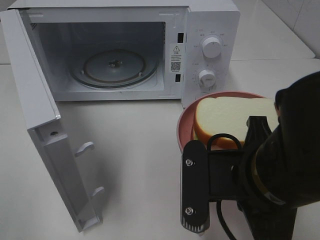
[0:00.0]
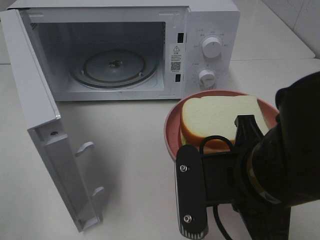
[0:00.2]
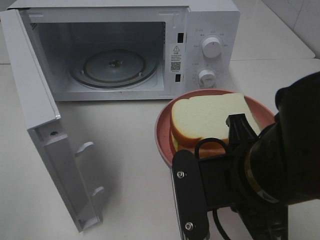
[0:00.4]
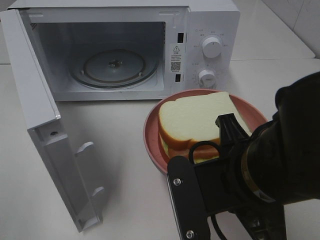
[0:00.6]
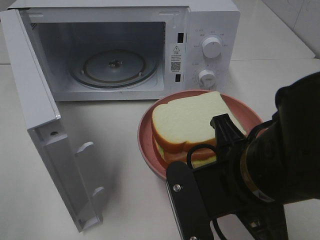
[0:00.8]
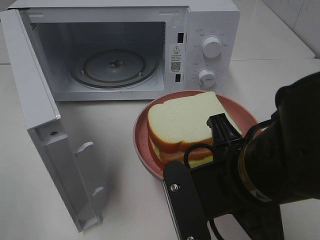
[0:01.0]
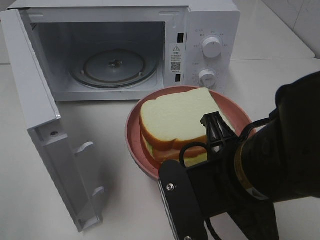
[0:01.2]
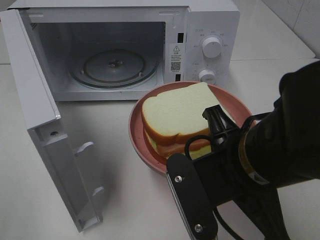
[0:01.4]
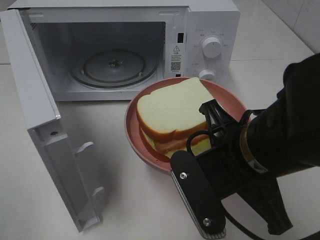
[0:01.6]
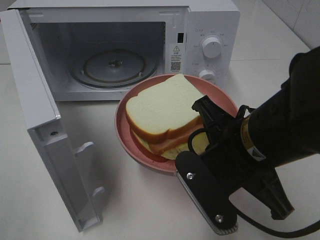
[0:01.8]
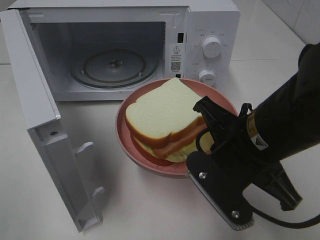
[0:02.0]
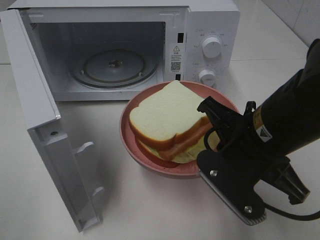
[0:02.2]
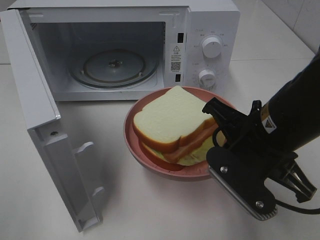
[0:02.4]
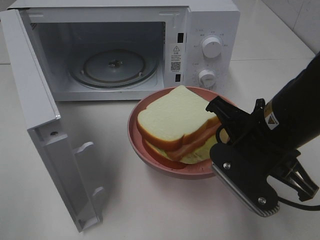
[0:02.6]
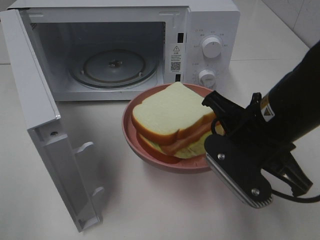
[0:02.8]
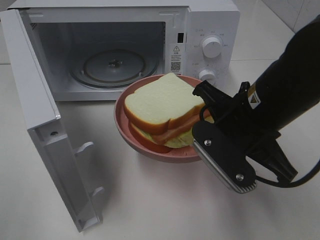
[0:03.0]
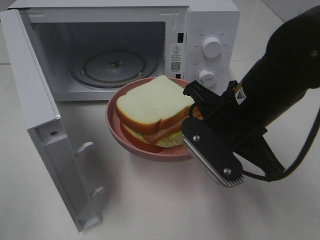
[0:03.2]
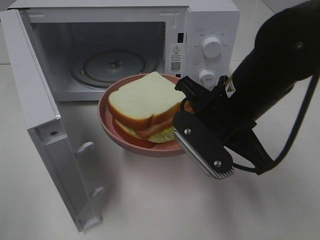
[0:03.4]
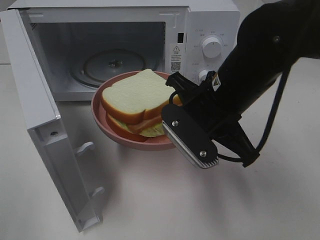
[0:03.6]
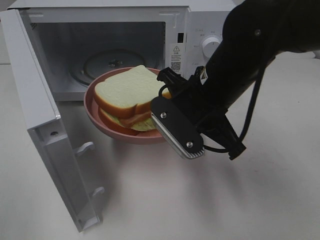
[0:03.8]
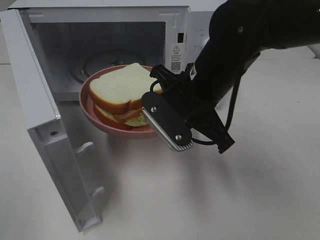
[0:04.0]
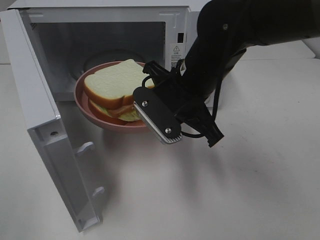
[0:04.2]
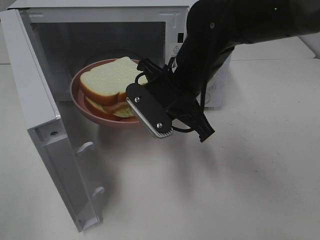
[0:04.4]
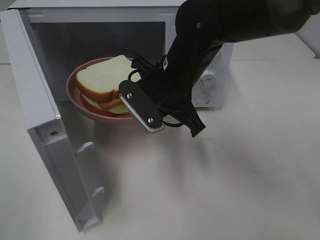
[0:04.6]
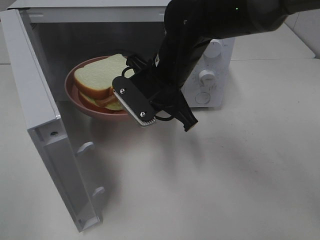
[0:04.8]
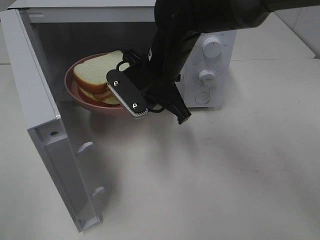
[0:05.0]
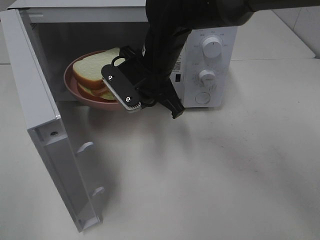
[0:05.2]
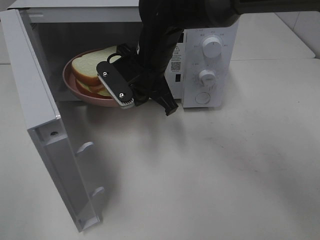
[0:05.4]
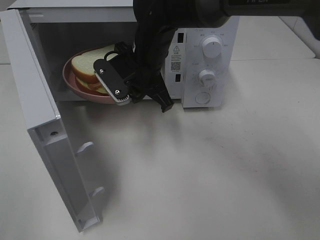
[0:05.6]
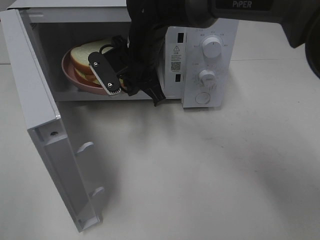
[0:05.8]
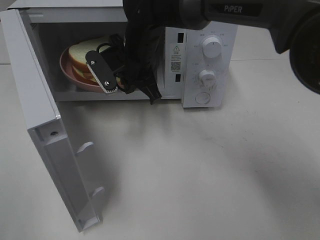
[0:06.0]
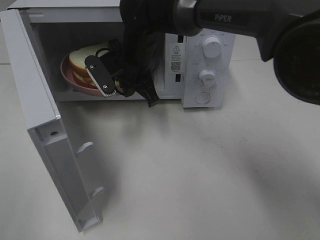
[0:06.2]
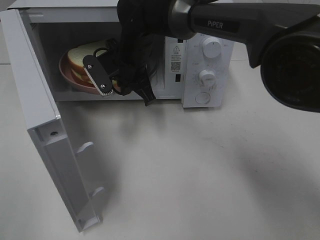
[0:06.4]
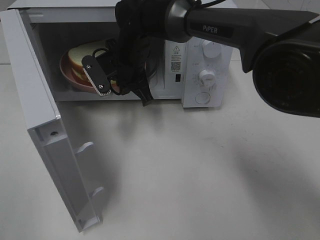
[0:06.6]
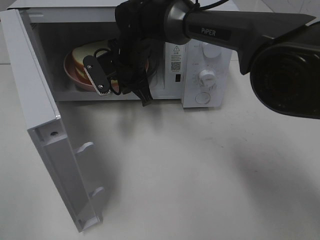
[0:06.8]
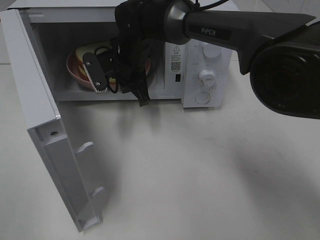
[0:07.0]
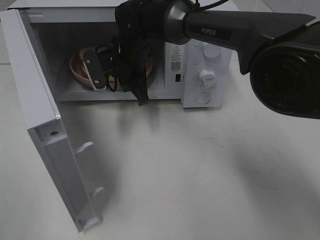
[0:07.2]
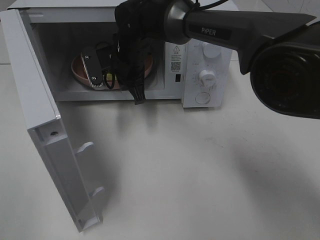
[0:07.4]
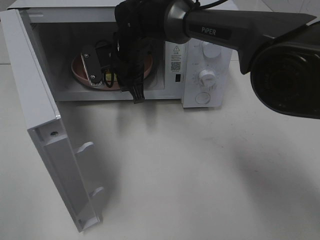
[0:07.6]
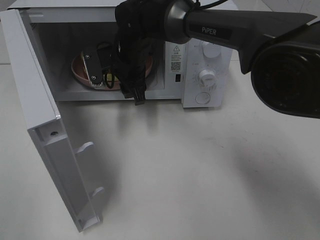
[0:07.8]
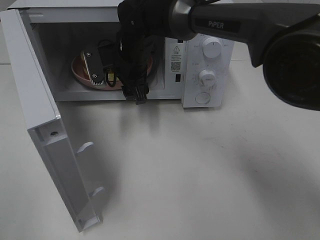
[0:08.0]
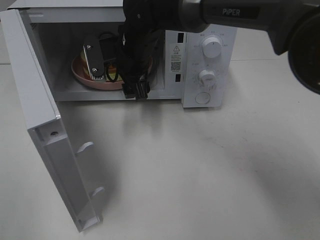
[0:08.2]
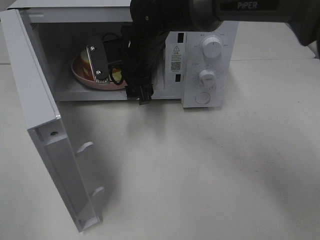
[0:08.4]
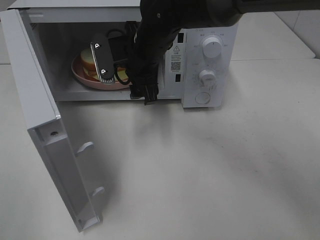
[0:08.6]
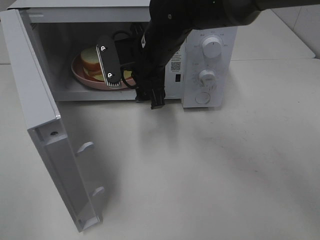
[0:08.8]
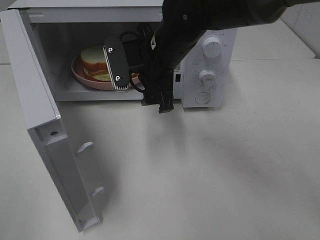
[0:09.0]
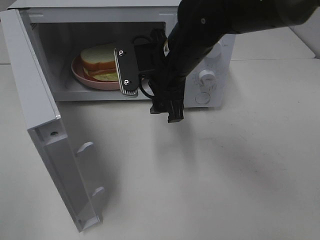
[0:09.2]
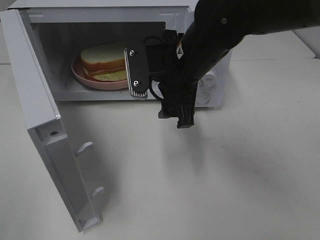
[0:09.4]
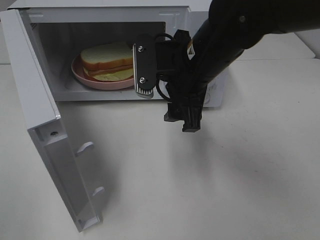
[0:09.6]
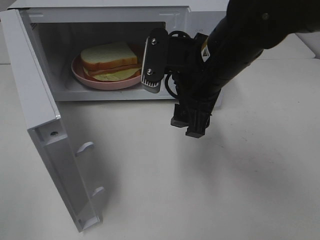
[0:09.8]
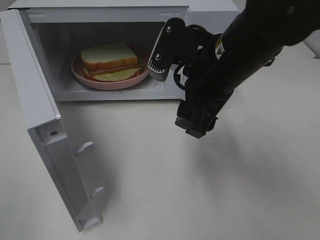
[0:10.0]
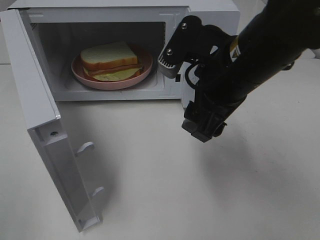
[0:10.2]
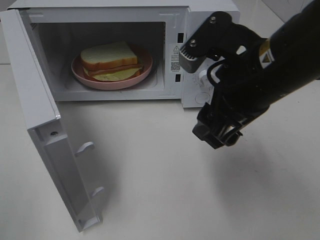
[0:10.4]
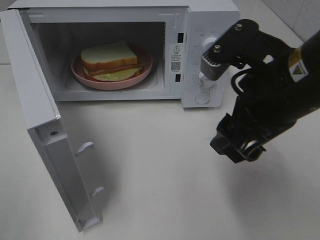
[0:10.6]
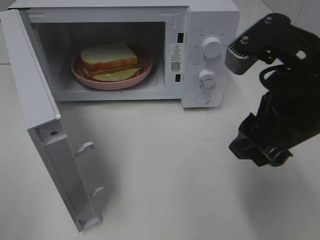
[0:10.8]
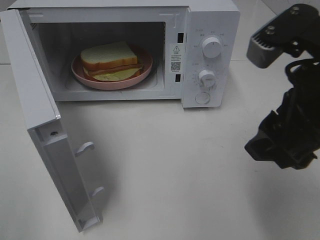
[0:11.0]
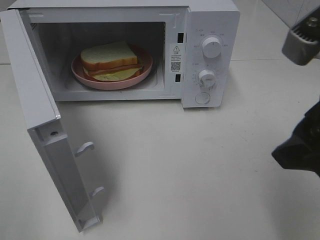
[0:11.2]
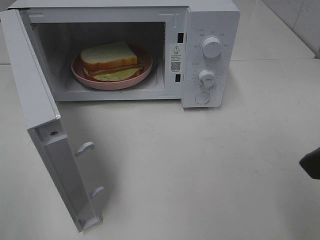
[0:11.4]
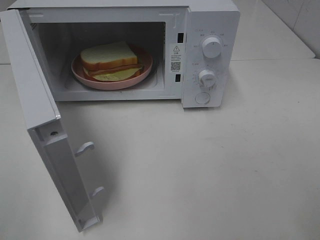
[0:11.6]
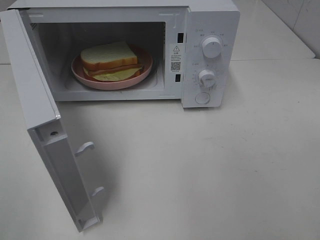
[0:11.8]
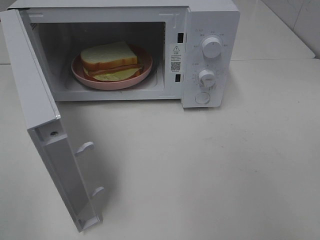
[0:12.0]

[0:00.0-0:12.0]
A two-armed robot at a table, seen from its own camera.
Task of the whole recording: Heat Sandwich.
Step, 0:00.0 to 0:07.6: Right hand: place the plate in the microwave.
0:01.6 to 0:03.0: The right gripper travels forward by about 5 cm.
0:03.0 to 0:04.4: The right gripper heads forward and to the left, covering approximately 10 cm.
0:04.4 to 0:06.0: The right gripper is displaced forward and to the left by about 15 cm.
0:06.0 to 0:07.6: The right gripper opens up.
0:07.6 to 0:09.0: The right gripper is displaced backward and to the right by about 10 cm, and opens.
0:09.0 to 0:10.4: The right gripper heads backward and to the right, covering some 15 cm.
0:10.4 to 0:12.0: The right gripper travels backward and to the right by some 20 cm.

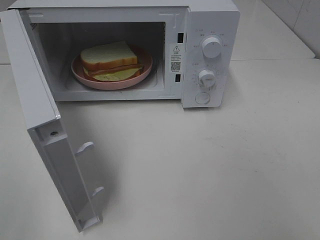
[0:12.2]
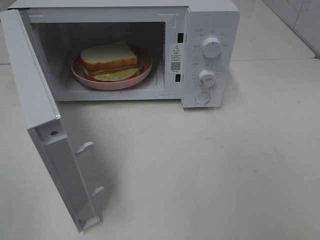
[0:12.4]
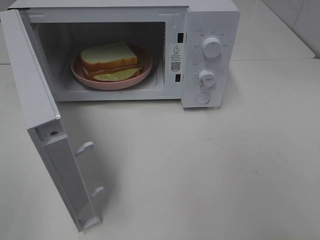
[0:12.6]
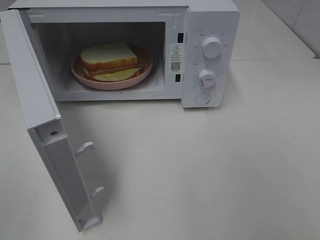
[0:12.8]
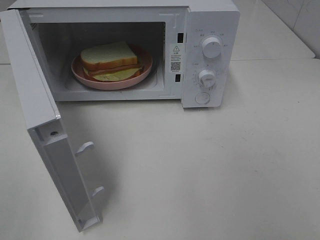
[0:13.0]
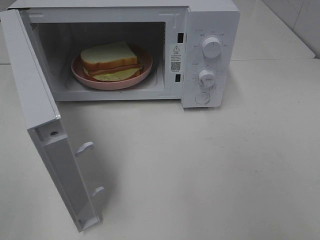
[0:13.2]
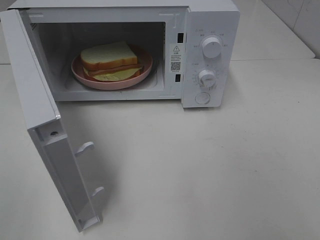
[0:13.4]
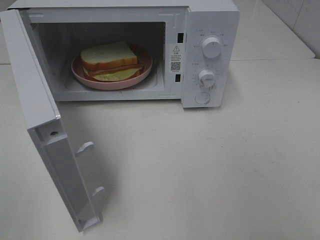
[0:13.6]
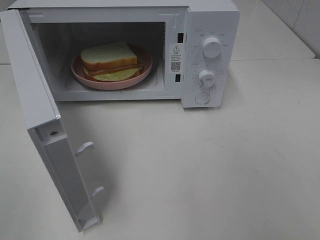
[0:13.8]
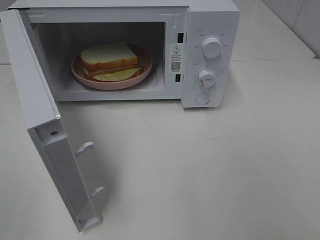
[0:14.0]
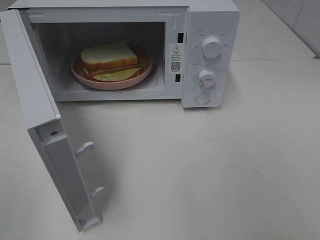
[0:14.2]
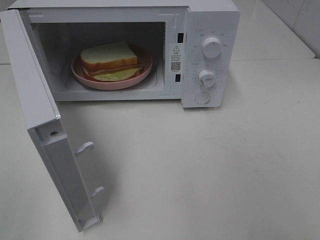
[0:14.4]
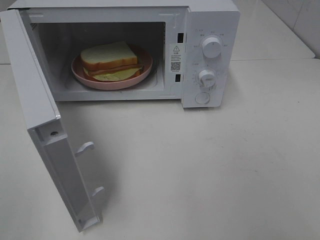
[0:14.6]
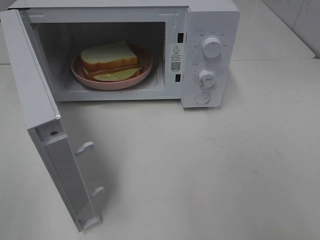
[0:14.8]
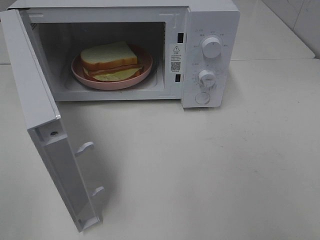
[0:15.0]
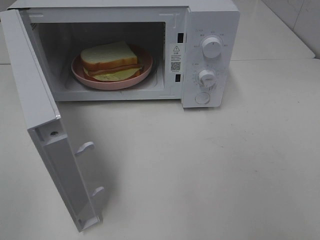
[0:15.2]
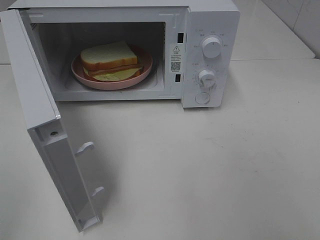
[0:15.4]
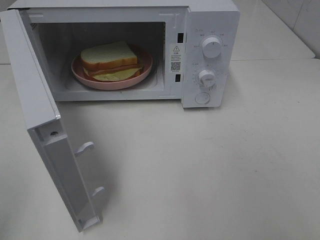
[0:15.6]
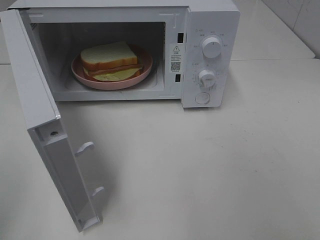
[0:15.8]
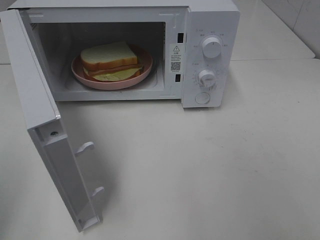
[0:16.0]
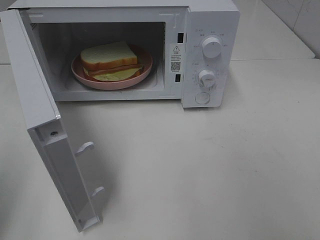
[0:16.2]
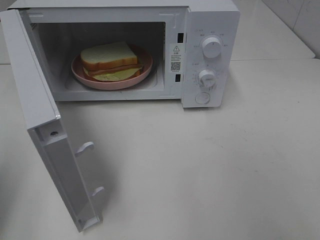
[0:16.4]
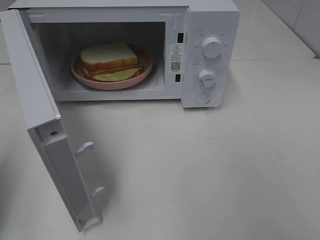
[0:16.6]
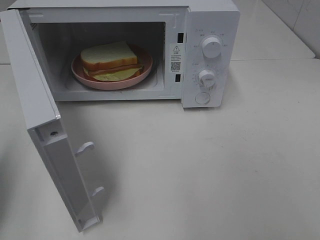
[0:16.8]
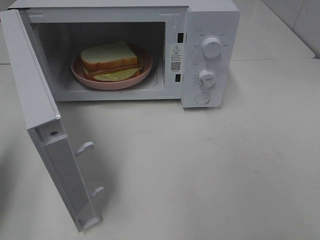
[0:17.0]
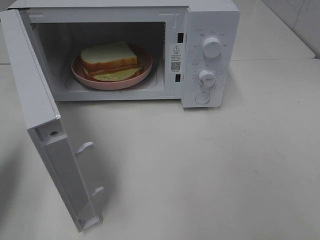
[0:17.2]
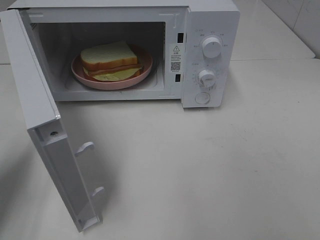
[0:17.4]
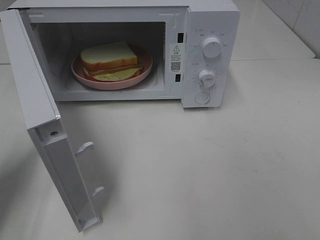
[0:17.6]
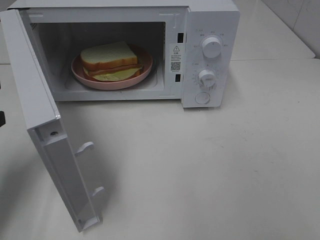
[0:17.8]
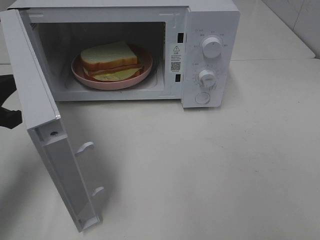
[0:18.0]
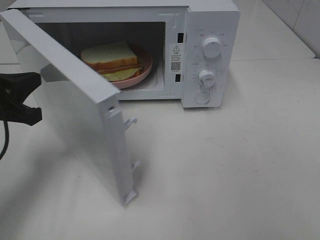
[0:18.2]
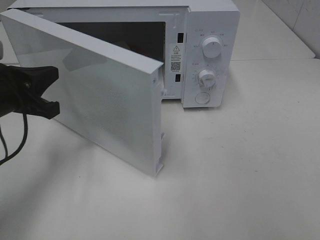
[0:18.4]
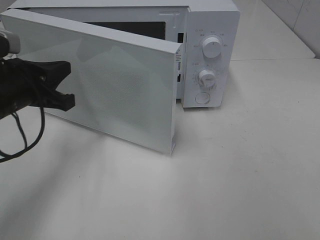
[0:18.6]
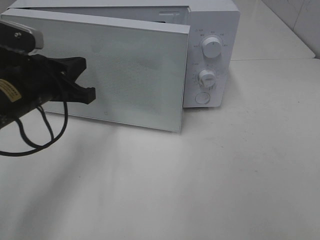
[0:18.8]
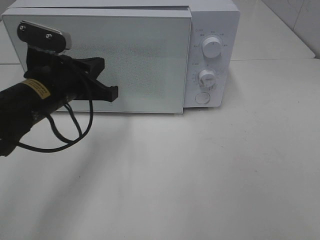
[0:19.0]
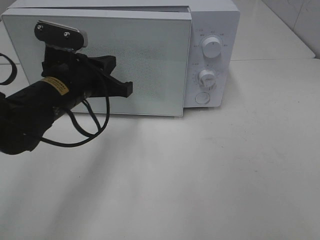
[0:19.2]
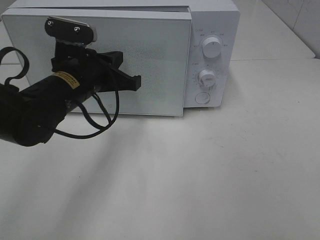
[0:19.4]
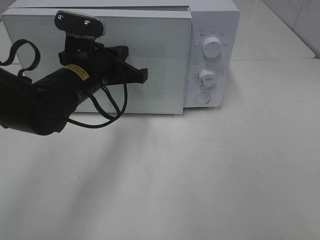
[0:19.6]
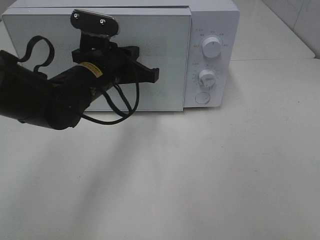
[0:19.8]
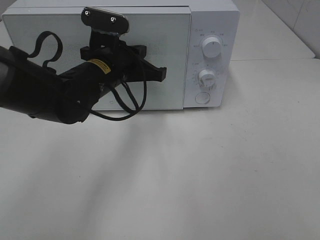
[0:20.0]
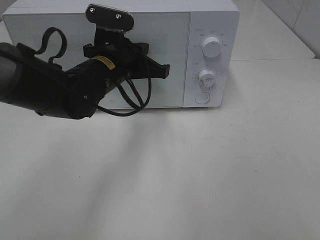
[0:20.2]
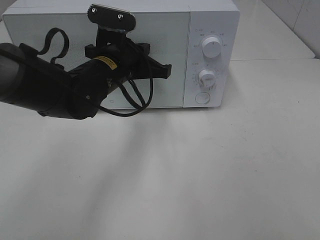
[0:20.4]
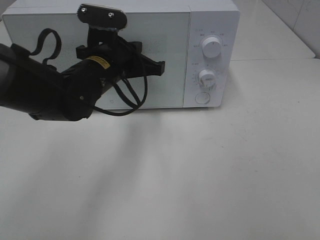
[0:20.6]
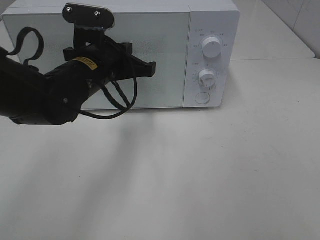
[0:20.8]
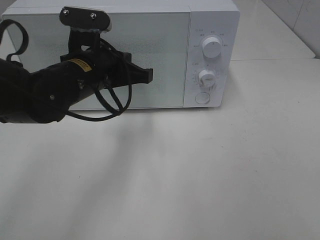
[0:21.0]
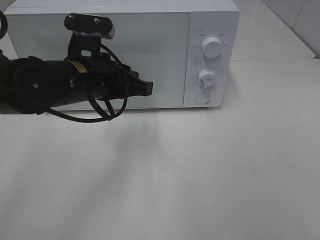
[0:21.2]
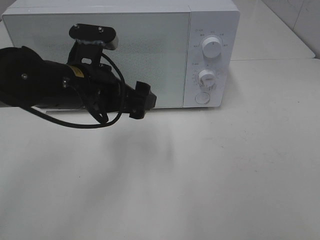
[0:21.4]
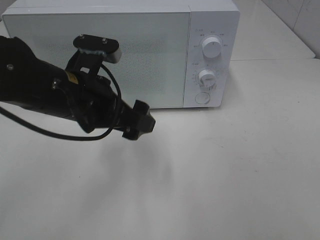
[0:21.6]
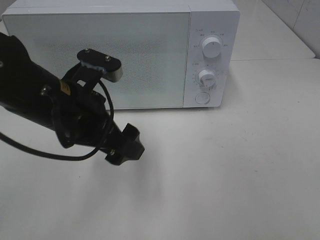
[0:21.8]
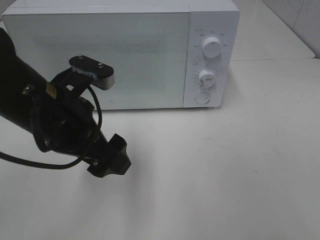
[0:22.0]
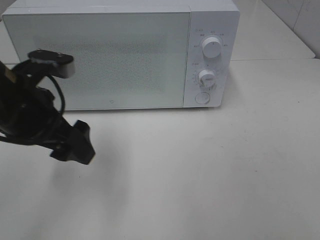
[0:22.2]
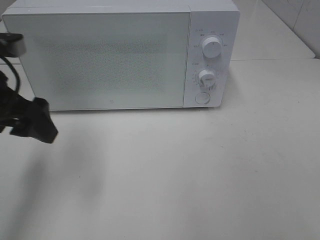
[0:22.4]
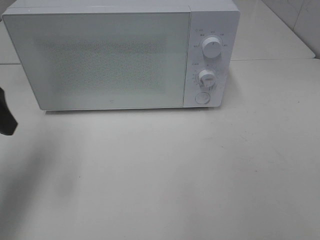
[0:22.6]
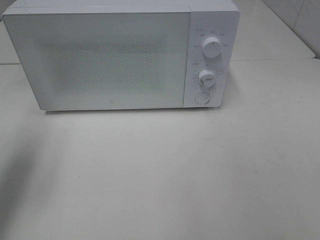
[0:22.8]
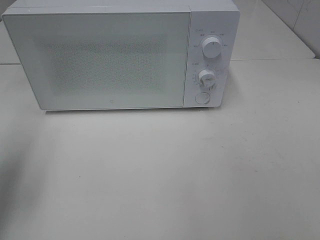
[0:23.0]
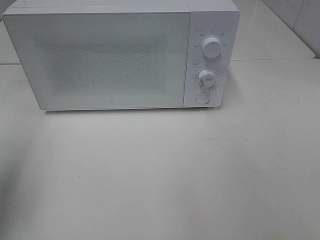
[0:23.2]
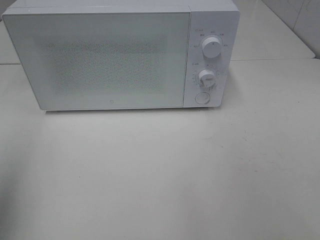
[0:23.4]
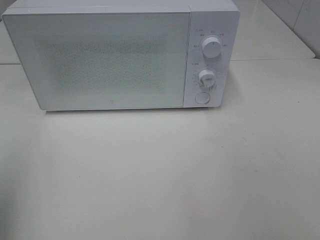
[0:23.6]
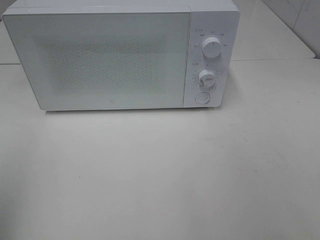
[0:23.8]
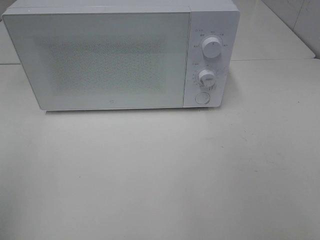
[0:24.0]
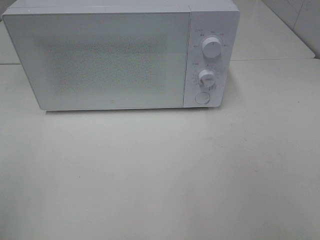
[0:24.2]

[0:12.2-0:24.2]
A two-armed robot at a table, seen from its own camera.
Task of the whole recording: Heat Sandwich.
Step, 0:12.2 to 0:20.8: Left hand: close the microwave door.
0:13.8 to 0:15.2: Neither gripper changes place.
0:15.2 to 0:16.6: The left gripper shifts approximately 15 cm forward, and closes up.
0:16.6 to 0:18.2: The left gripper goes approximately 15 cm forward, downward and to the right.
0:18.2 to 0:19.8: The left gripper shifts some 20 cm to the right and forward.
0:19.8 to 0:21.2: The left gripper ends up some 5 cm from where it was.
0:21.2 to 0:22.6: The left gripper travels to the left by roughly 20 cm, and opens its fingers.
0:22.6 to 0:24.2: The left gripper shifts roughly 20 cm backward.
